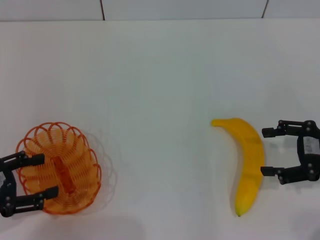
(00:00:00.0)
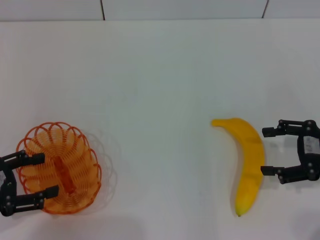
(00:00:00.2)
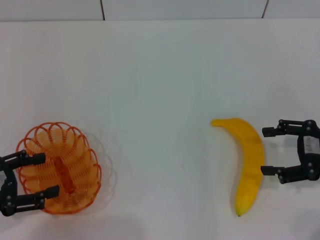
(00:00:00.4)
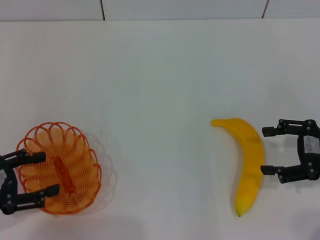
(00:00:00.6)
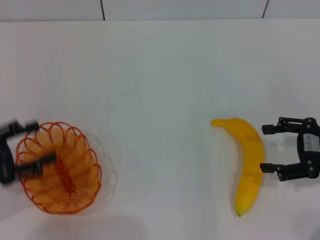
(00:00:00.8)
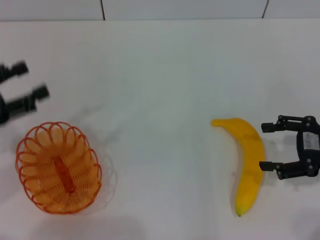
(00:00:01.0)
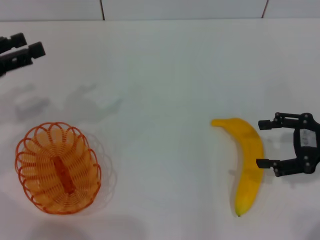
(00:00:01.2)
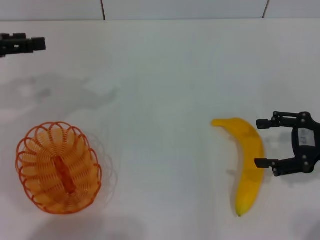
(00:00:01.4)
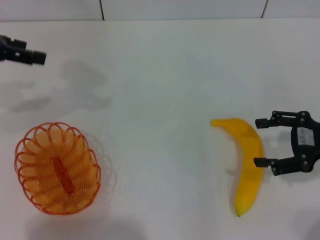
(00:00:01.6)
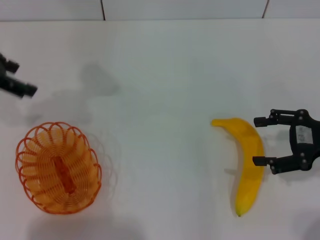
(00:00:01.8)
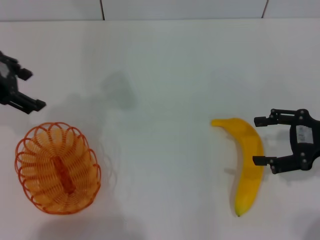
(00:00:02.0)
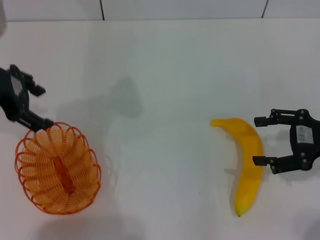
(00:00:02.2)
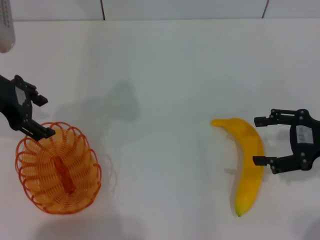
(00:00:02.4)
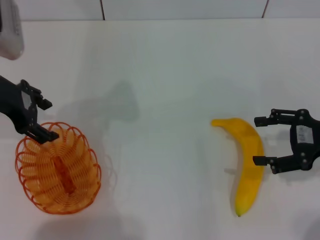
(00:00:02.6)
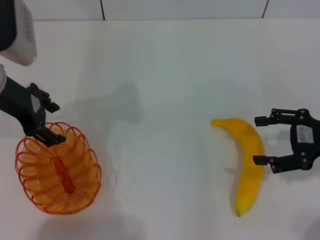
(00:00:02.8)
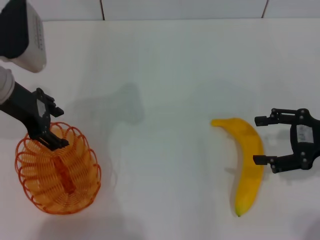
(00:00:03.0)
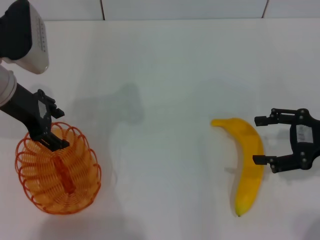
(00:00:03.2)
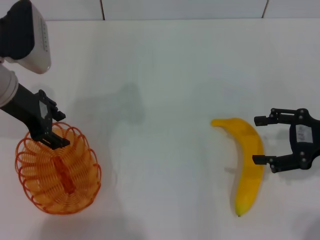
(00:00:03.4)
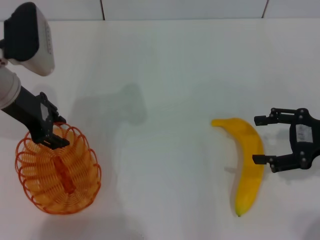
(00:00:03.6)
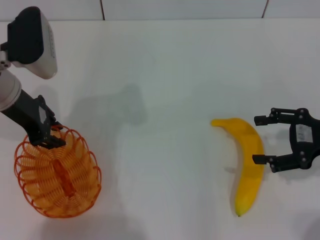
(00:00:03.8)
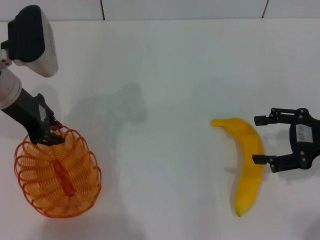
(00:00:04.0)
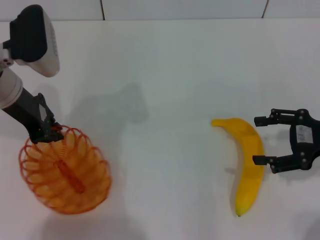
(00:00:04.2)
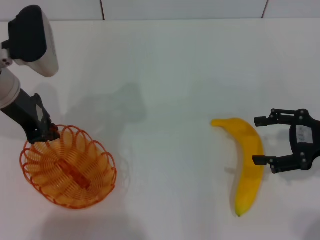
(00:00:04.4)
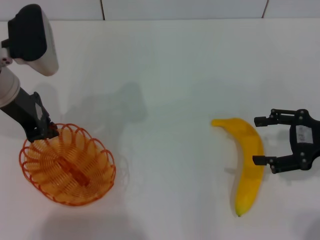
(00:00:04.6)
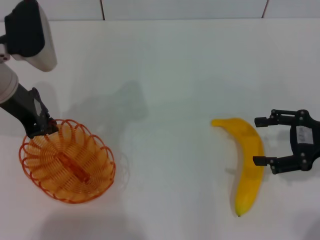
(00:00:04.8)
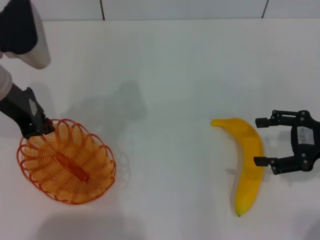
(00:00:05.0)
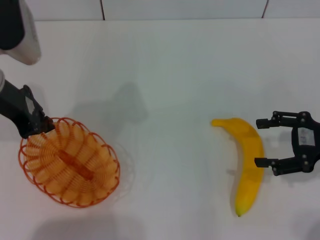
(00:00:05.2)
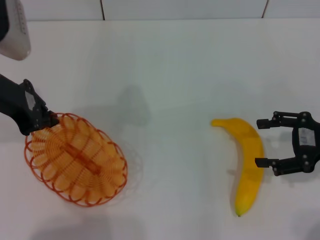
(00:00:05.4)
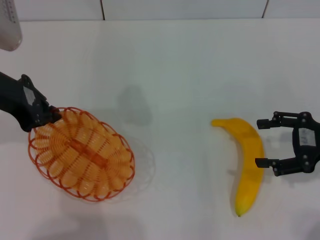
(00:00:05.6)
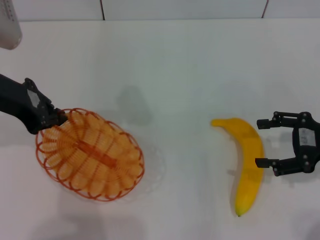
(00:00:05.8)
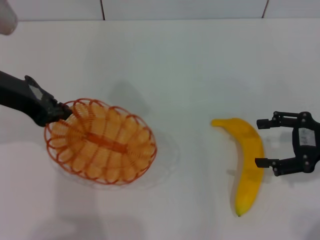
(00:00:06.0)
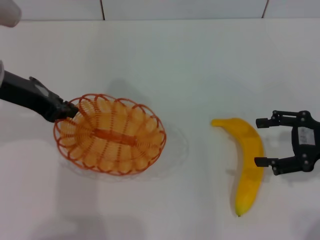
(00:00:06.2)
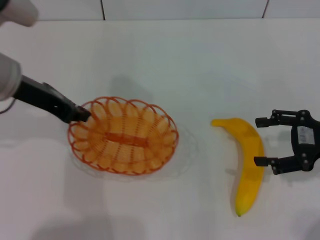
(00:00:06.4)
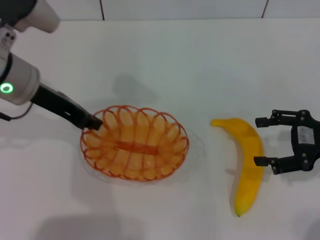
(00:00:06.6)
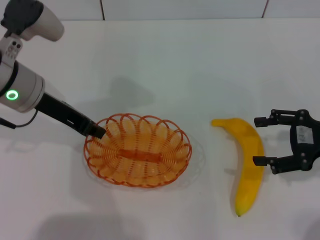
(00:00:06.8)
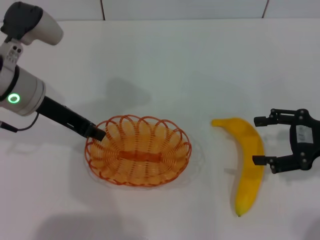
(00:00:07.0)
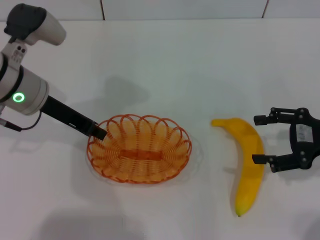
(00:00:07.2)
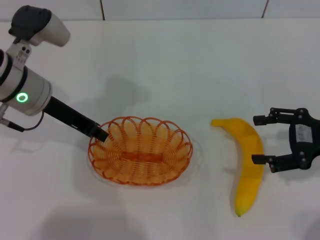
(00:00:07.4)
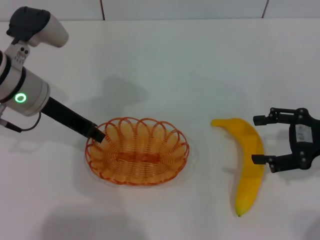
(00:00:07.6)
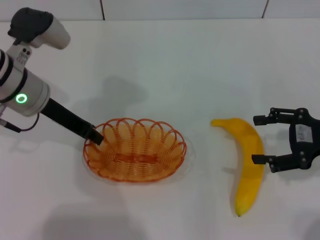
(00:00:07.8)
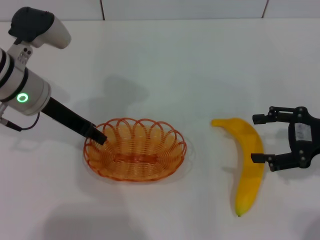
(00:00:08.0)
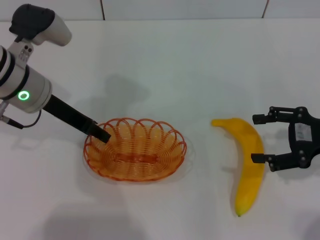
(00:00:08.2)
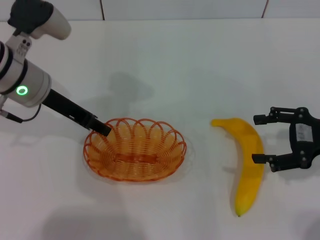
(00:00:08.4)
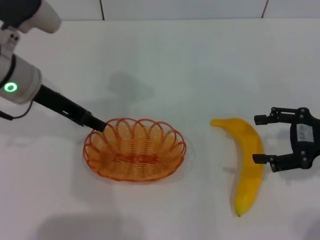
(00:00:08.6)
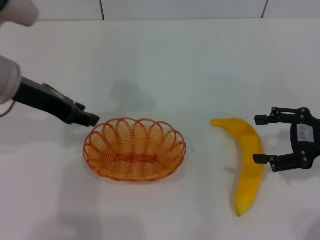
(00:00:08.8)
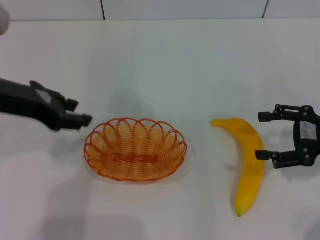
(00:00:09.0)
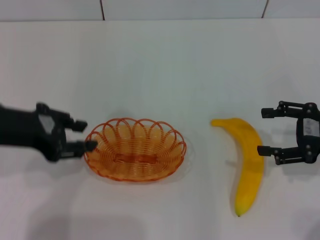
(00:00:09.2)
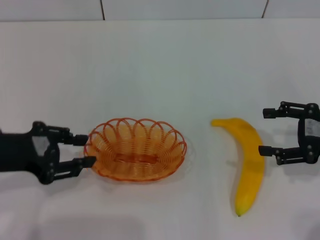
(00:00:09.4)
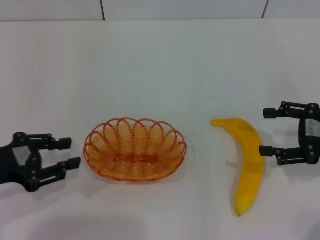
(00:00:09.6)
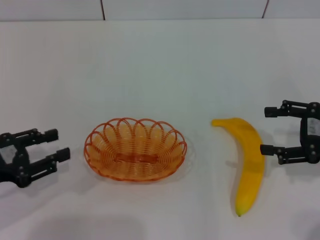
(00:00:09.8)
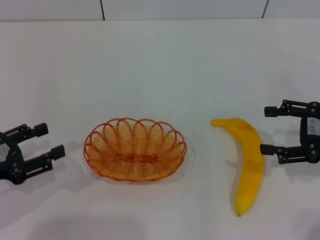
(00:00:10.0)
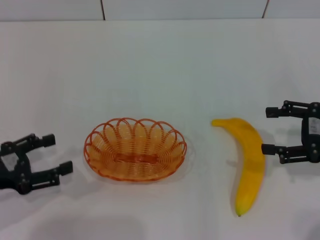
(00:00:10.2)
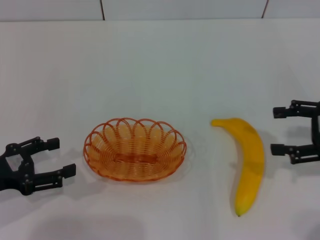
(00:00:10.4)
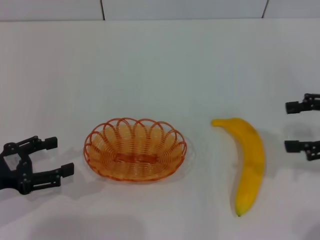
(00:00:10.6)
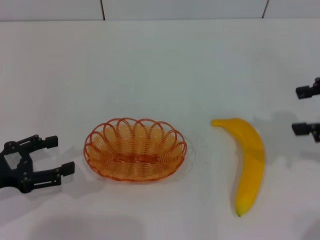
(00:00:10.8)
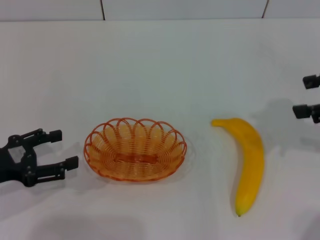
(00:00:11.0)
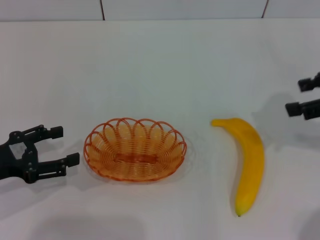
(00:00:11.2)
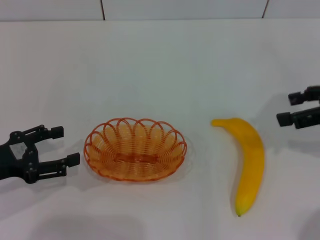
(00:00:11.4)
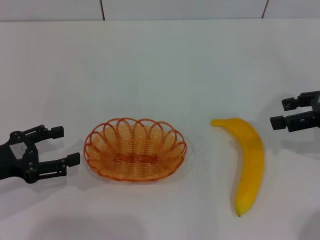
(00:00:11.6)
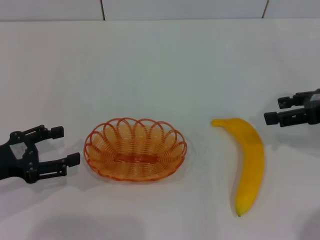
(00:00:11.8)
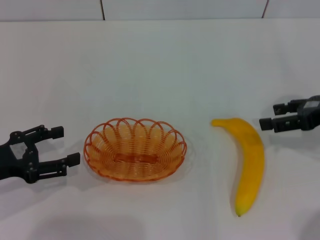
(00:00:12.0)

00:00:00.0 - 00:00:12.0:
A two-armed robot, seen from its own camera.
Step, 00:00:00.0 - 00:00:05.0: Pick up the basket with the left gripper.
Step, 00:00:05.2 - 00:00:09.6: Place the basket in the center of view with the left gripper.
00:00:00.0 - 00:00:01.6: The left gripper heads forward and upward, covering some 25 cm.
00:00:01.6 - 00:00:03.0: The left gripper is displaced to the right and downward by about 10 cm.
00:00:03.0 - 00:00:04.4: The left gripper closes its fingers.
00:00:04.4 - 00:00:06.0: The left gripper changes place by about 5 cm.
00:00:06.0 - 00:00:07.6: The left gripper shifts about 5 cm downward.
00:00:07.6 - 00:00:09.0: The left gripper moves upward and backward, about 10 cm, and opens up.
00:00:09.0 - 00:00:10.4: The left gripper moves downward, to the left and backward, approximately 20 cm, and opens up.
00:00:10.4 - 00:00:12.0: The right gripper moves roughly 10 cm upward and comes back.

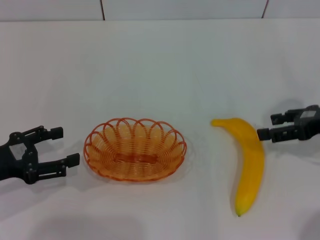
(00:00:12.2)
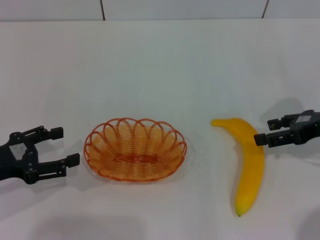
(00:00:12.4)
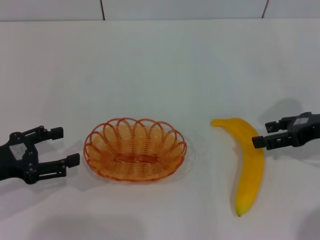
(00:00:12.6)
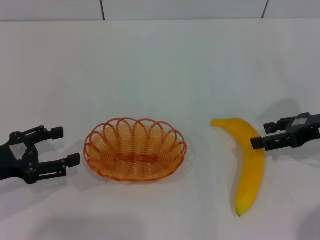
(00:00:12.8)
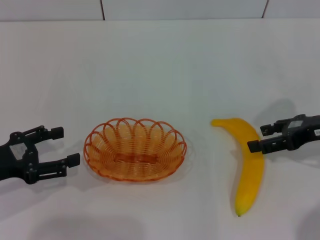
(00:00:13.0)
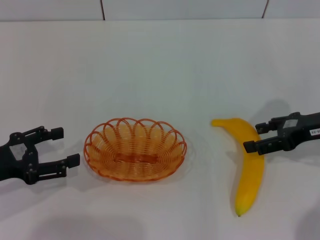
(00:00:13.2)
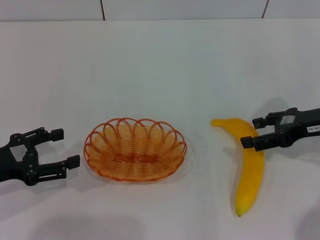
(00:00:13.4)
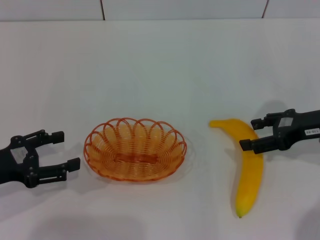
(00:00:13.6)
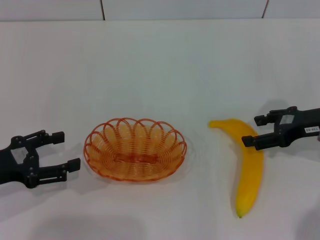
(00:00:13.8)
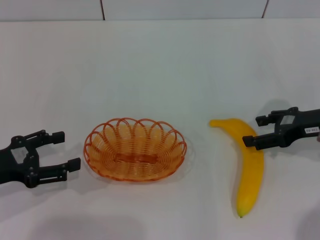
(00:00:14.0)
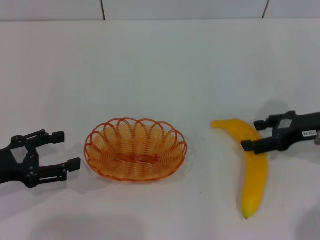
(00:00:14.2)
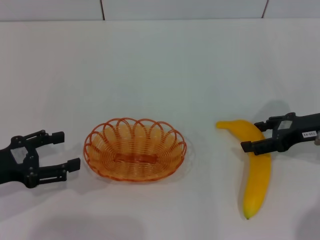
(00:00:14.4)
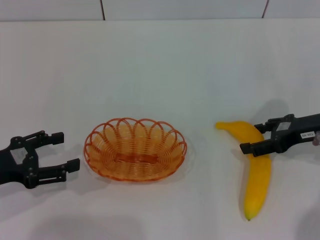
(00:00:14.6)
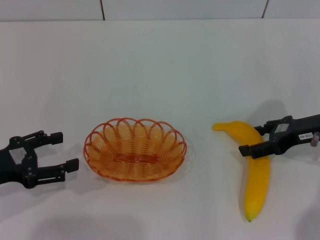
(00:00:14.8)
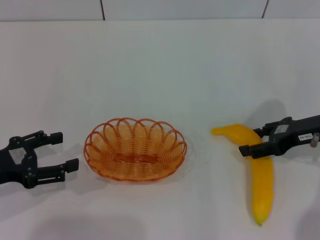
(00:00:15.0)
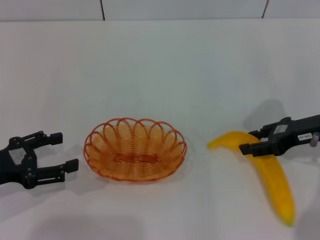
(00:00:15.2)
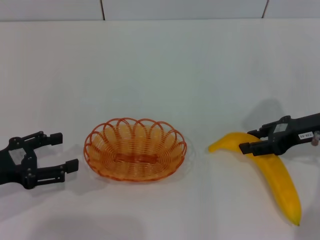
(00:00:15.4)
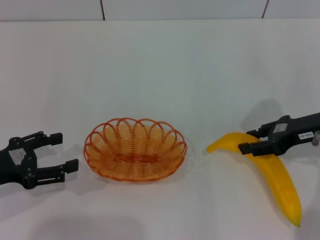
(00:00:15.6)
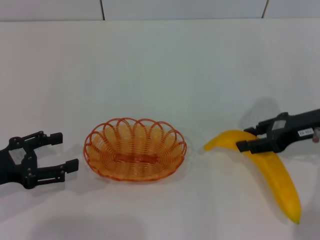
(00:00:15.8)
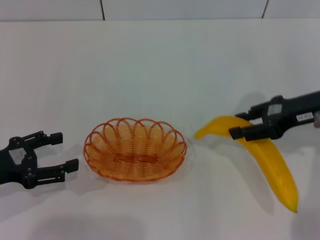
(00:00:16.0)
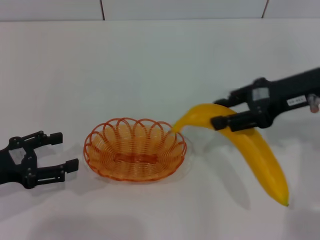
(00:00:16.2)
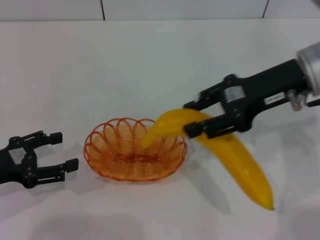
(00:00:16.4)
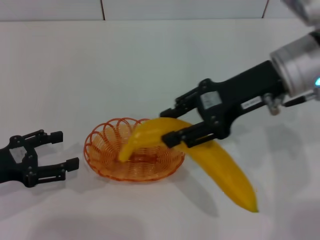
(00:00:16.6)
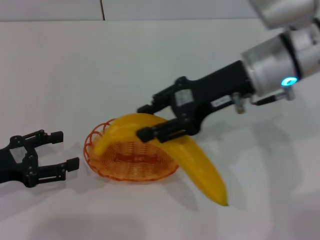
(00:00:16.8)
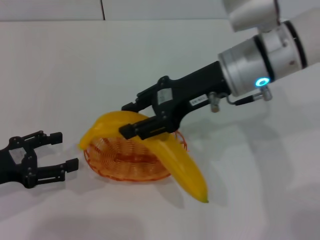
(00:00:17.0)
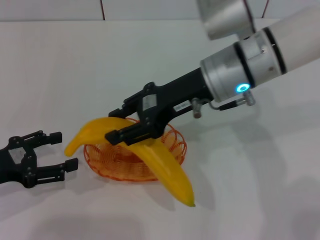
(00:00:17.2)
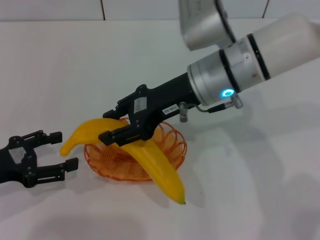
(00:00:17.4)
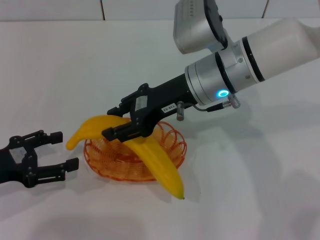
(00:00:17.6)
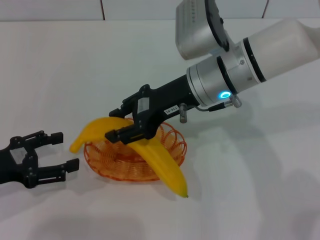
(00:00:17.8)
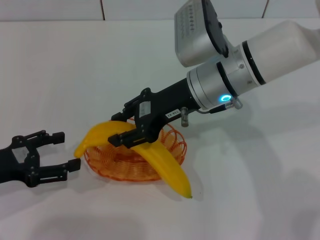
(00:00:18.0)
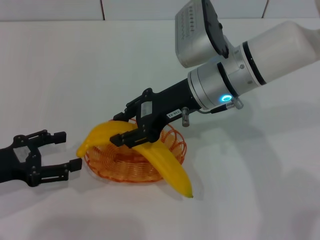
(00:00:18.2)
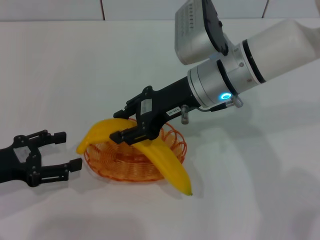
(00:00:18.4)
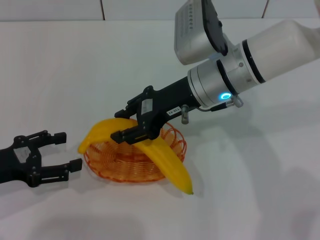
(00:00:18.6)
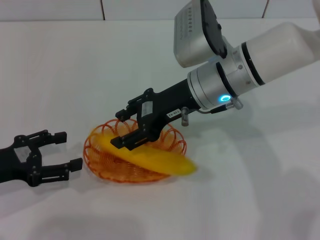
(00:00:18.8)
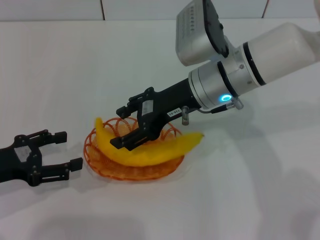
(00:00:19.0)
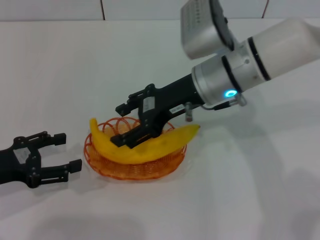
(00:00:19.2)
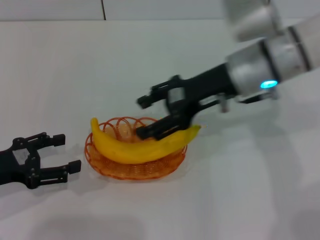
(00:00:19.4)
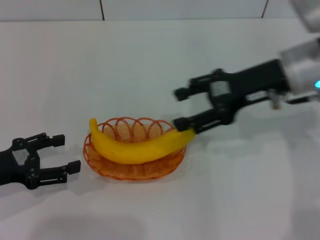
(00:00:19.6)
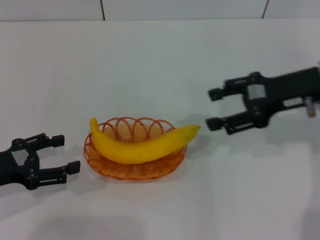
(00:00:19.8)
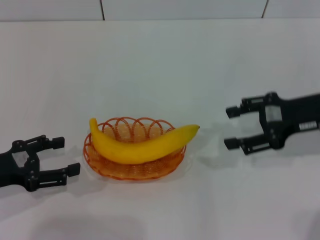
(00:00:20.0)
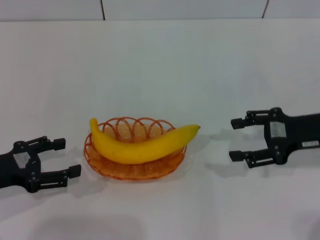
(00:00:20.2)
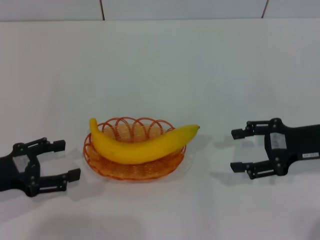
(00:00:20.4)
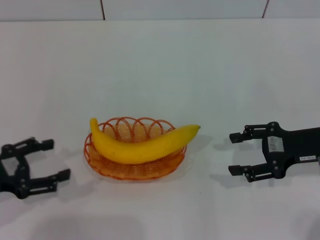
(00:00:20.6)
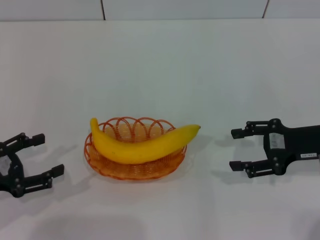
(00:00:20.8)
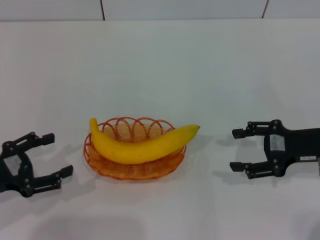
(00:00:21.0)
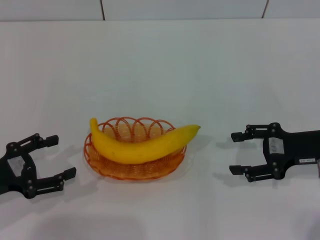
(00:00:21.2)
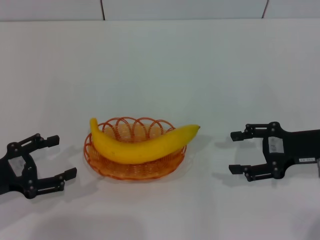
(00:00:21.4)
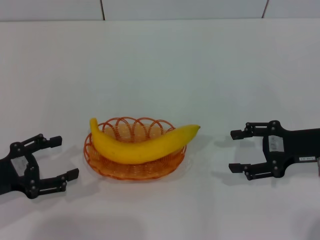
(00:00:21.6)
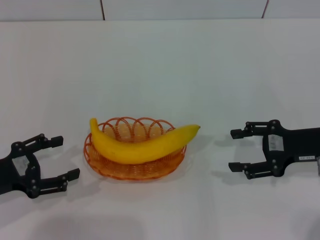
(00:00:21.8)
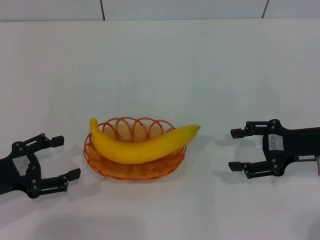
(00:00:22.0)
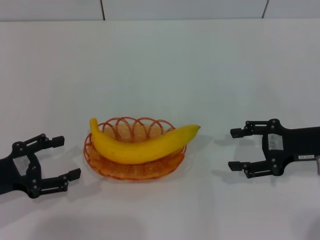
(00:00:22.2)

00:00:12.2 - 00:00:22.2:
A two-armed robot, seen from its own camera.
Step, 00:00:12.2 - 00:00:15.8: Pick up the banana with the right gripper.
Step, 00:00:16.0 - 00:00:19.6: Place the banana into the basket with the right gripper.
00:00:12.2 - 00:00:15.0: The grippers move only a little.
00:00:15.0 - 00:00:16.4: The right gripper heads upward and to the left, covering approximately 15 cm, and closes up.
00:00:16.4 - 00:00:18.0: The right gripper shifts roughly 10 cm to the left.
00:00:18.0 - 00:00:19.4: The right gripper goes roughly 5 cm to the right, and opens up.
00:00:19.4 - 00:00:20.8: The right gripper goes approximately 20 cm to the right, downward and backward.
00:00:20.8 - 00:00:22.2: The grippers move only a little.
